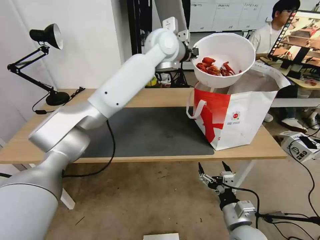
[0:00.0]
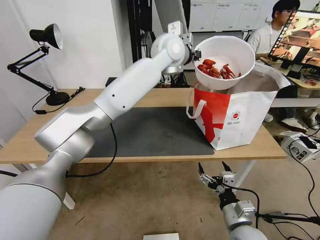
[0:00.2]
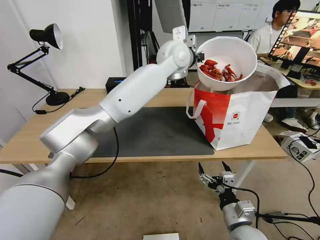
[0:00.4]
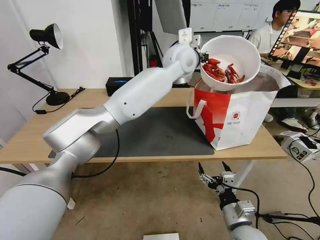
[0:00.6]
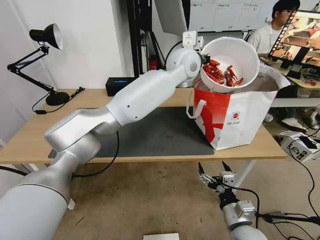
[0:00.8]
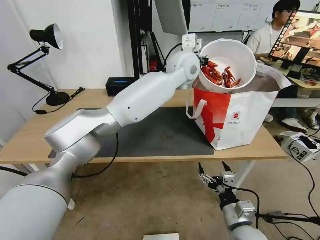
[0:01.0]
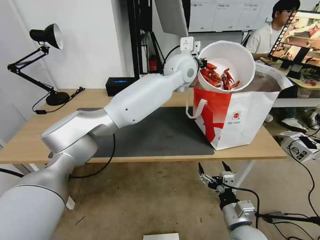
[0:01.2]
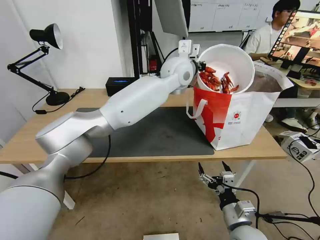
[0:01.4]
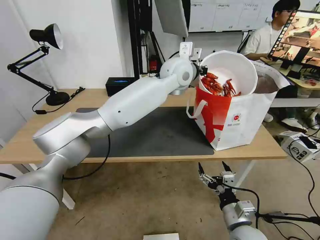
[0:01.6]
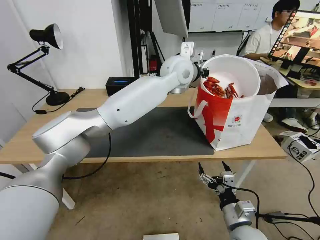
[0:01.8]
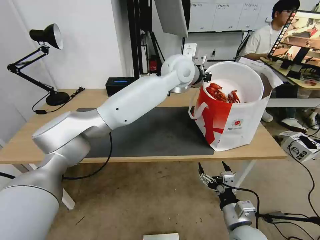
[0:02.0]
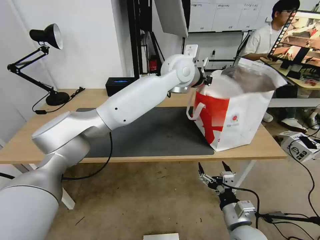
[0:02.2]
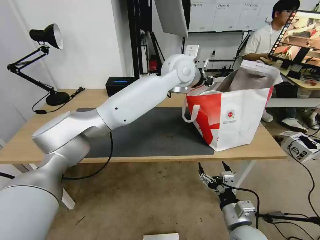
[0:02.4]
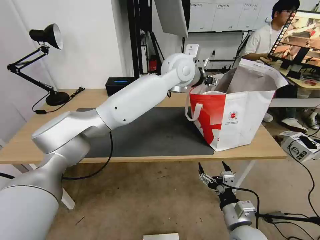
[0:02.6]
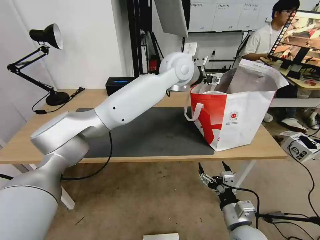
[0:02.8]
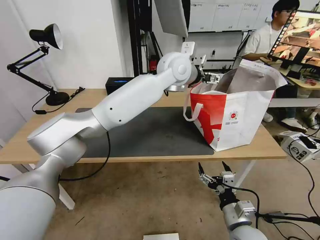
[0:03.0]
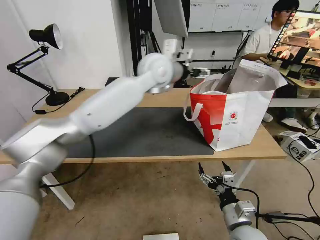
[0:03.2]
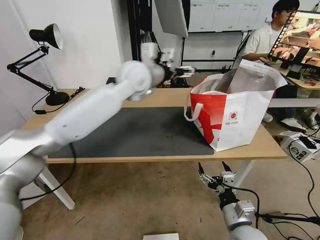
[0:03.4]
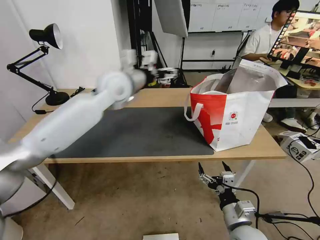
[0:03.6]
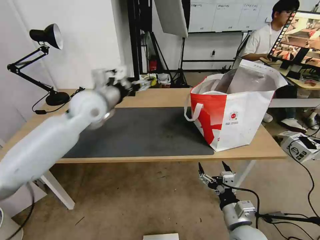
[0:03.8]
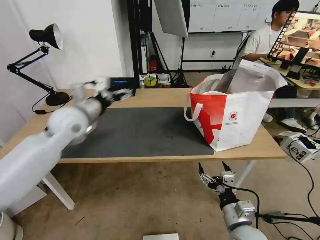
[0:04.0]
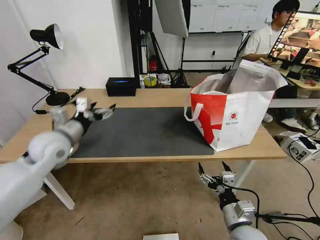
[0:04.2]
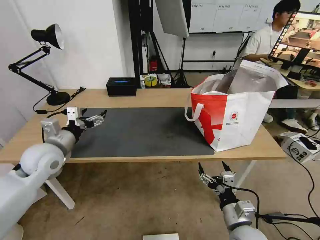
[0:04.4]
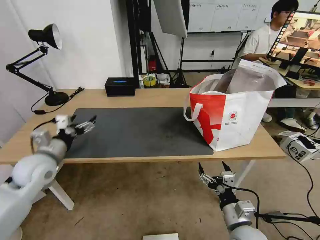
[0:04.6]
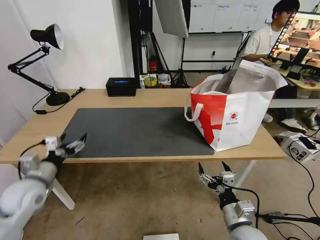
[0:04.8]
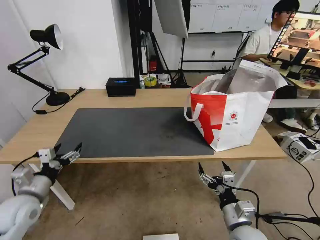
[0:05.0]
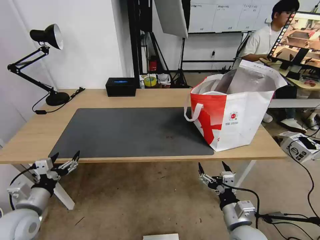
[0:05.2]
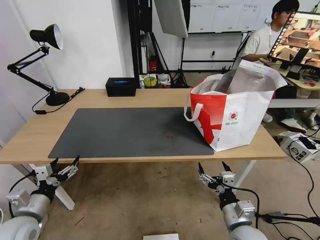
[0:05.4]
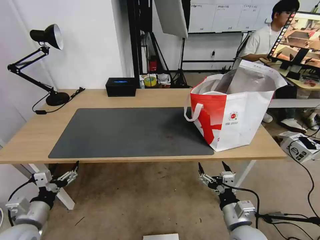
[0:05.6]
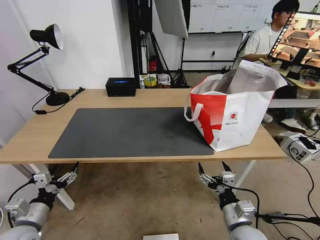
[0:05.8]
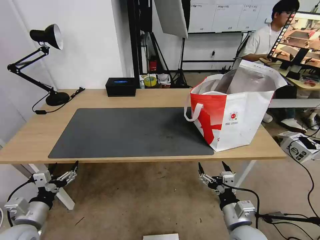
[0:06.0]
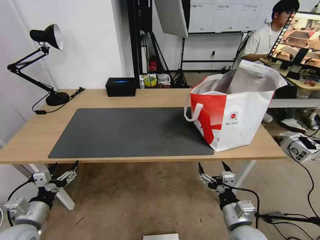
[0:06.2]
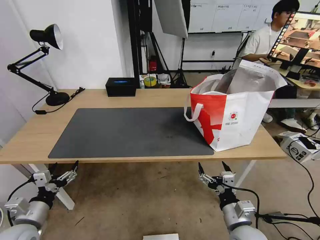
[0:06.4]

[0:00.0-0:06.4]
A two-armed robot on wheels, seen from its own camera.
Task of the whole recording: Pick up the trash from the table and place it into the takeout bag.
0:00.0 to 0:01.6: The left gripper travels downward by approximately 5 cm.
0:01.6 to 0:03.2: The left gripper goes some 5 cm to the left, and opens.
0:03.2 to 0:04.8: The left gripper shifts roughly 50 cm to the left, downward and backward.
0:04.8 to 0:06.4: The left gripper travels backward and downward by some 15 cm.

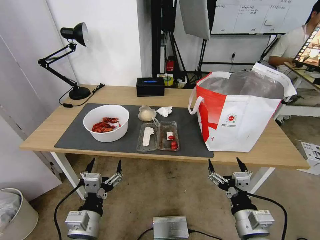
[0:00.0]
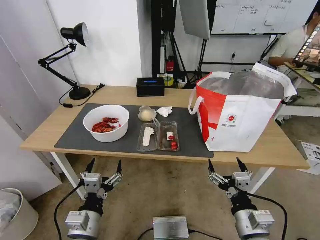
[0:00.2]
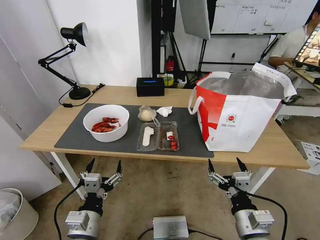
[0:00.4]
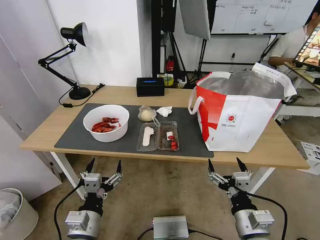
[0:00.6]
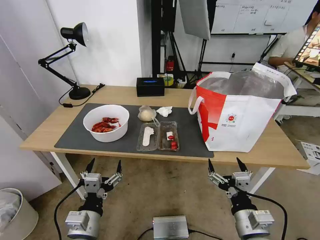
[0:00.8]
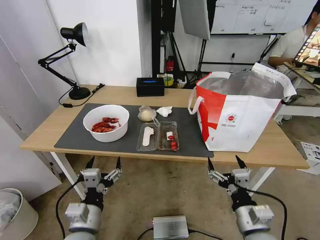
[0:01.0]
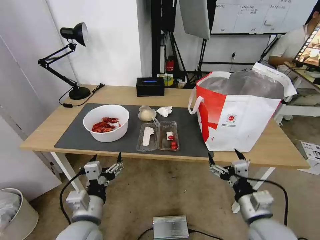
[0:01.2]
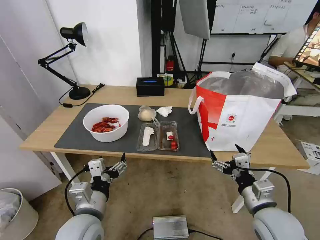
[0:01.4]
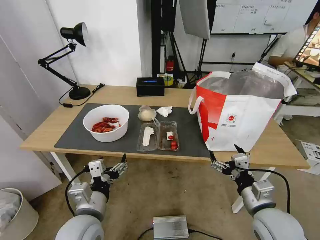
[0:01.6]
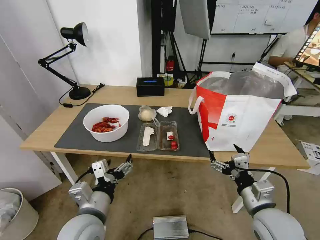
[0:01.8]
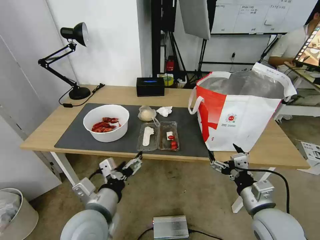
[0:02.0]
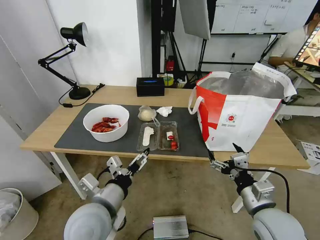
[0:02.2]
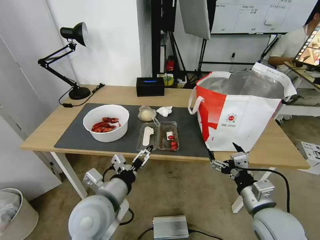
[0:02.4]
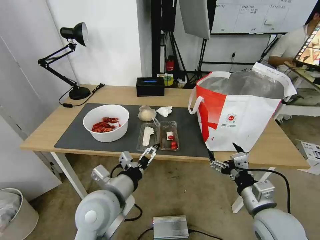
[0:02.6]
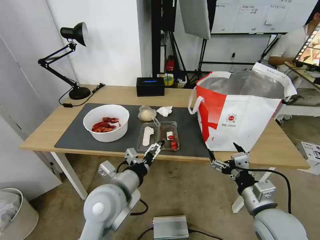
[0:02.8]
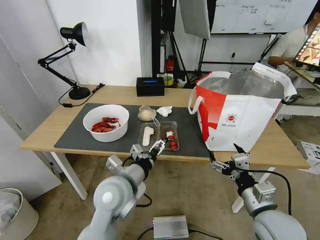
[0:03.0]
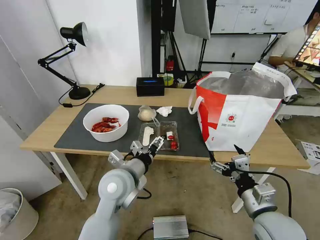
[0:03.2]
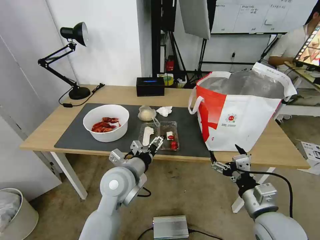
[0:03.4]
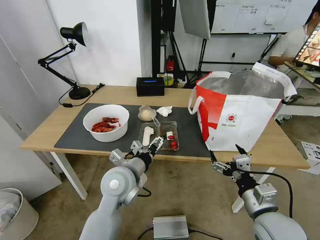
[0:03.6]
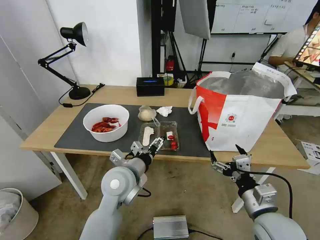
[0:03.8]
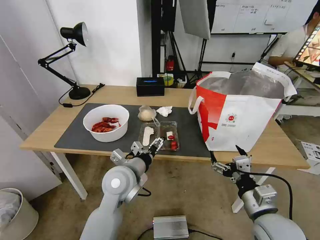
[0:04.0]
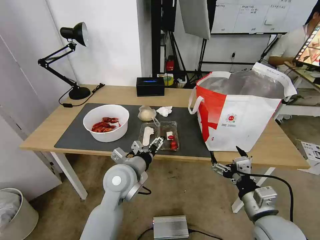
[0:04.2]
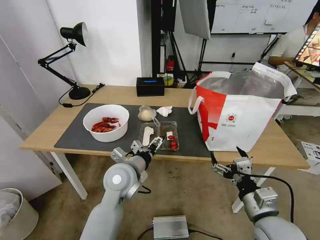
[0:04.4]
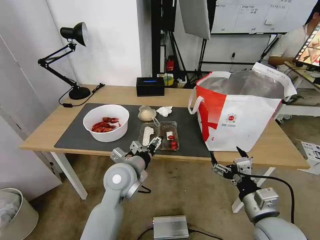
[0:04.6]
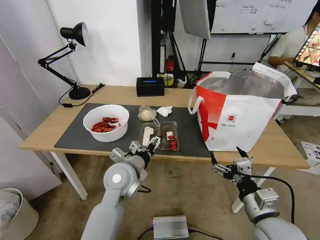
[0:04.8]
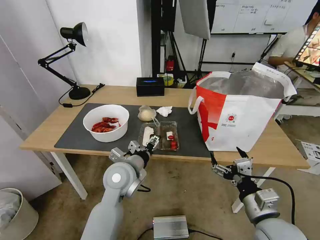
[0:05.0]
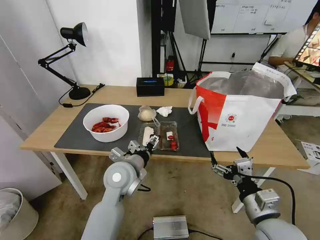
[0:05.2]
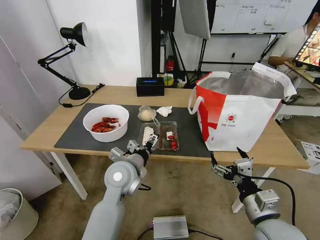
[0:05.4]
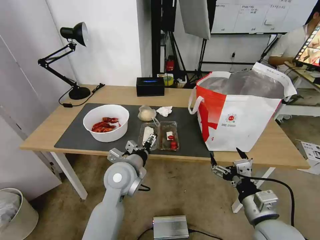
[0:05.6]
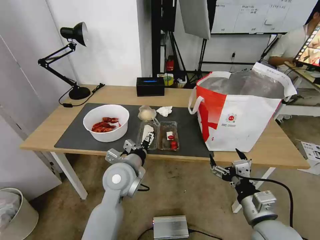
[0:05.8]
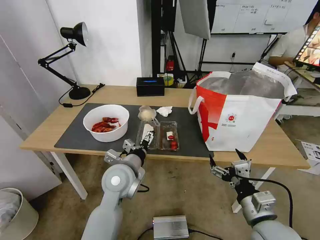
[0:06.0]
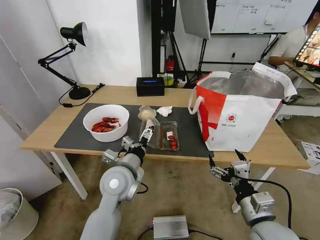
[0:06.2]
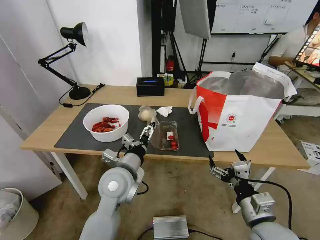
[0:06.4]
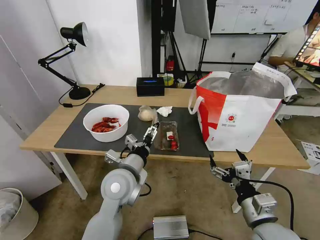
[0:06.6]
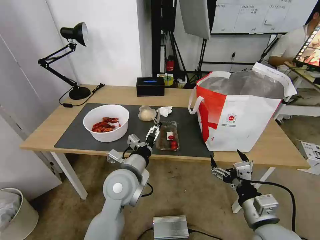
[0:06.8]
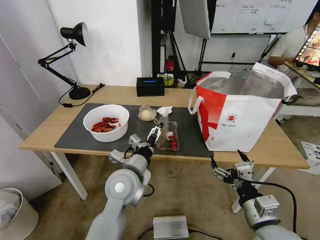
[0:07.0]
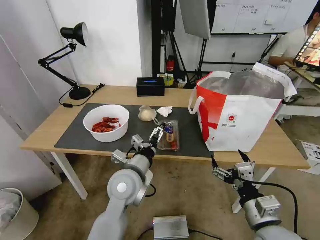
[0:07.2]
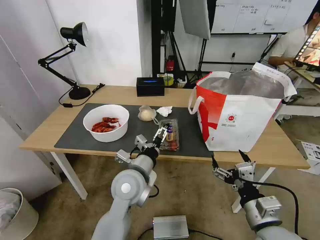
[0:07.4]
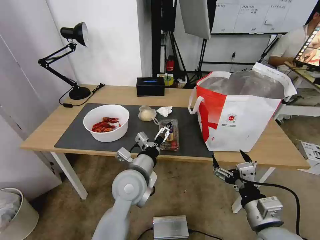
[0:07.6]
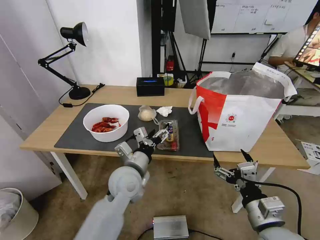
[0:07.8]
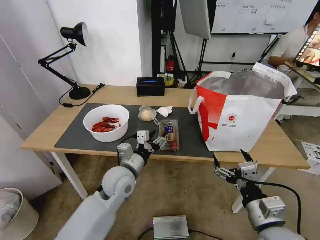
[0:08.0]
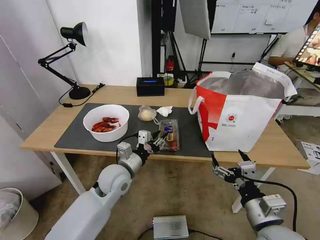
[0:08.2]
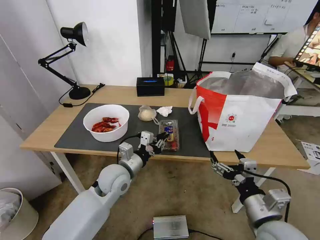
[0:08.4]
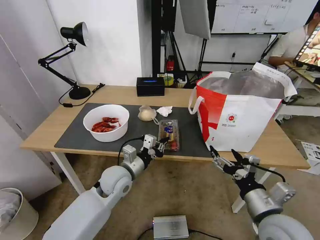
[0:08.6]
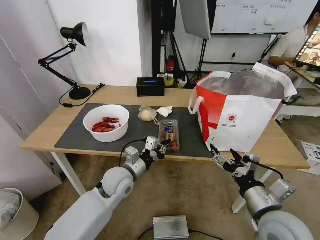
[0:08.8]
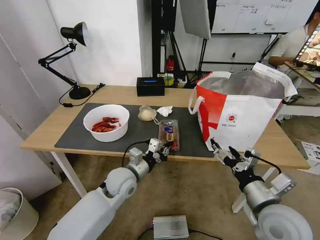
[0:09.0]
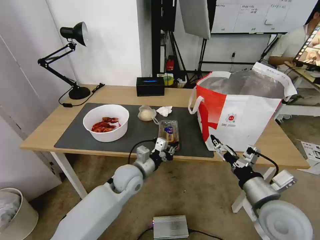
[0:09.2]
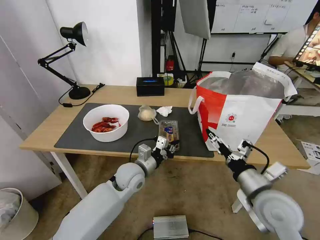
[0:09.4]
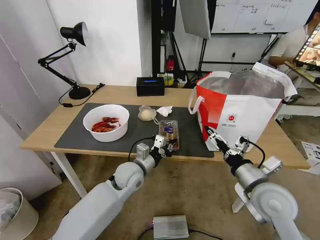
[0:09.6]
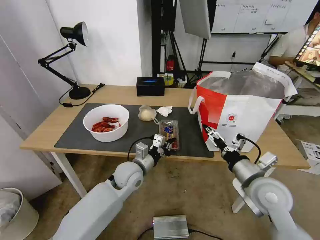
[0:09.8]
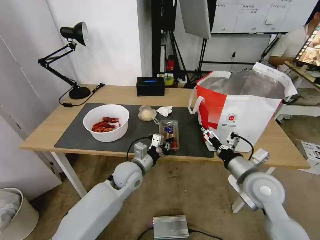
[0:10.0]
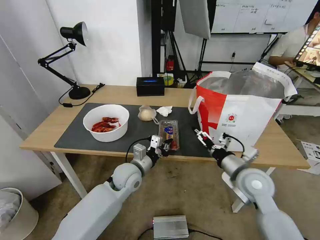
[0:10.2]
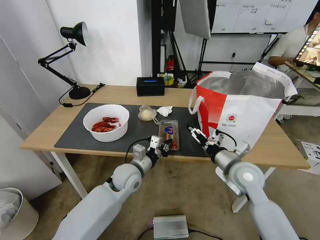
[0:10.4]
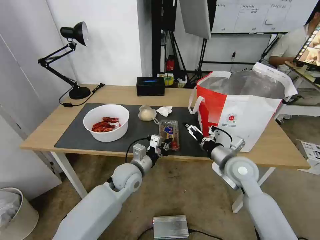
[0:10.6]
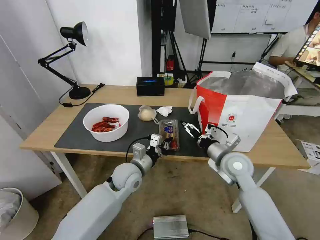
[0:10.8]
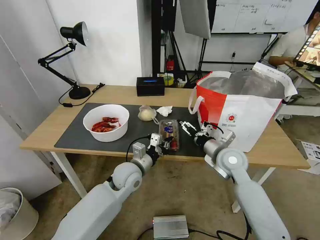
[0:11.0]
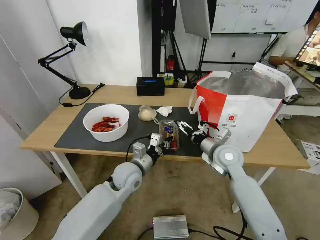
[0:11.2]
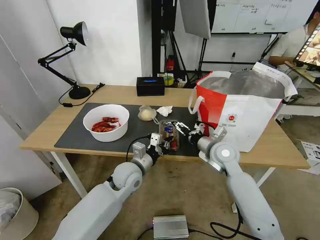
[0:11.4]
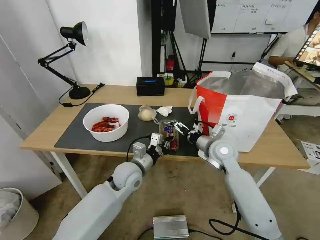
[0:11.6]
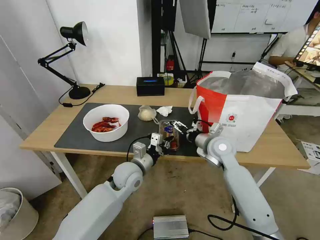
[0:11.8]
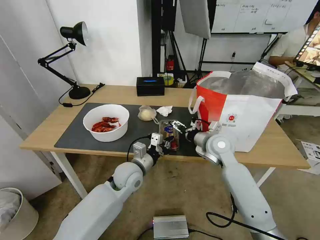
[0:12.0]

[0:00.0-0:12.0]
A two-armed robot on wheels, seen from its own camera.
Task of the whole recording: Pick up the trash from the table and place it into the takeout bag.
0:01.6 to 0:03.0: The left gripper is displaced forward and to the right by some 10 cm.
0:03.0 to 0:04.4: The left gripper shifts approximately 5 cm forward.
0:04.4 to 0:07.6: There are only small adjustments of the grippers.
0:07.6 to 0:09.0: The left gripper is displaced downward by approximately 5 cm, and closes.
0:09.0 to 0:10.4: The right gripper is displaced forward by roughly 15 cm.
0:10.4 to 0:12.0: The right gripper travels forward and to the left by about 10 cm.

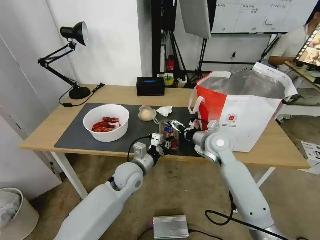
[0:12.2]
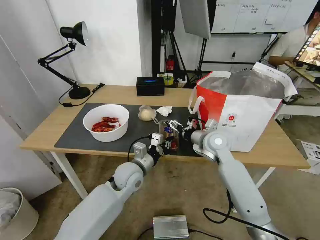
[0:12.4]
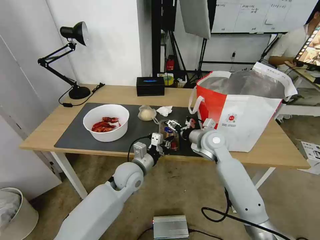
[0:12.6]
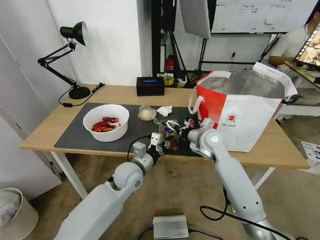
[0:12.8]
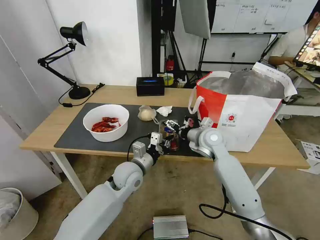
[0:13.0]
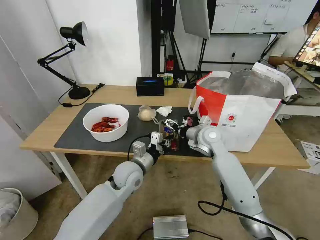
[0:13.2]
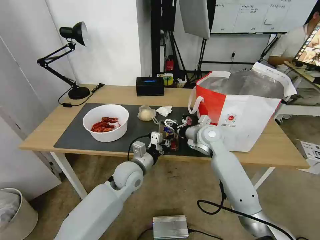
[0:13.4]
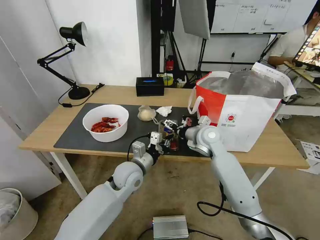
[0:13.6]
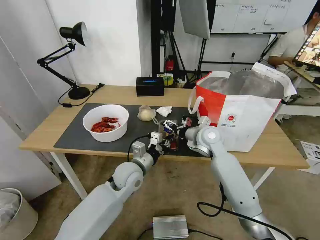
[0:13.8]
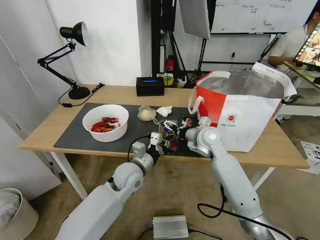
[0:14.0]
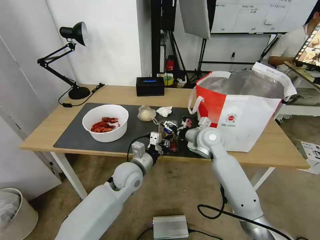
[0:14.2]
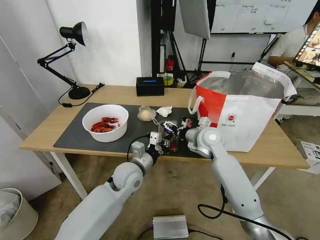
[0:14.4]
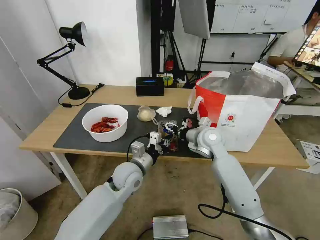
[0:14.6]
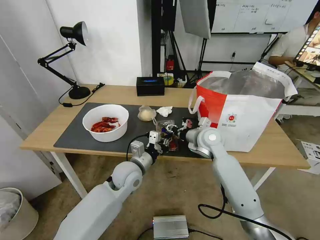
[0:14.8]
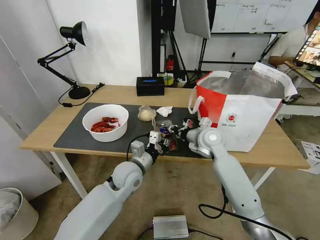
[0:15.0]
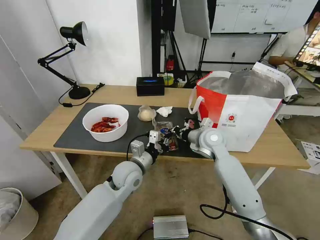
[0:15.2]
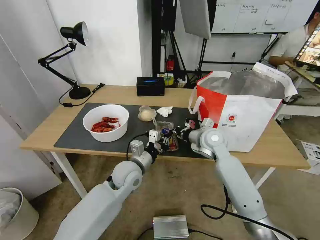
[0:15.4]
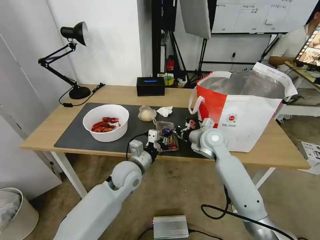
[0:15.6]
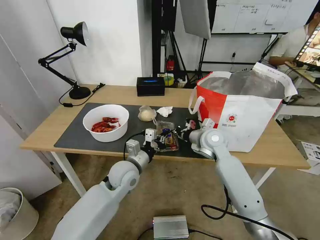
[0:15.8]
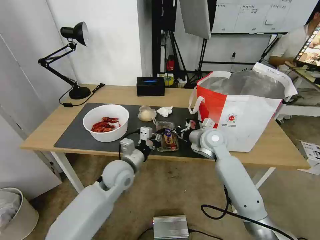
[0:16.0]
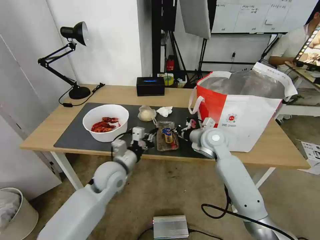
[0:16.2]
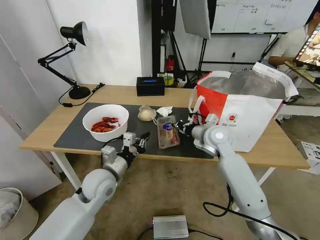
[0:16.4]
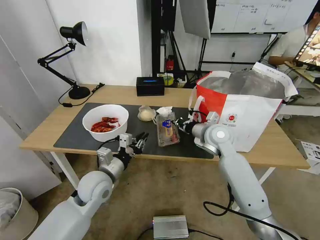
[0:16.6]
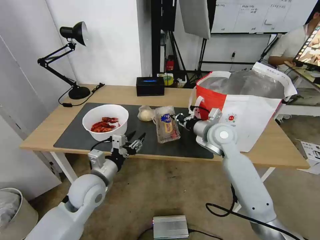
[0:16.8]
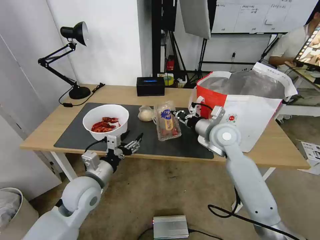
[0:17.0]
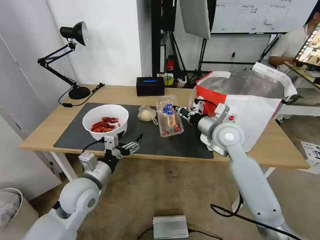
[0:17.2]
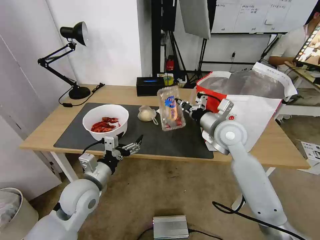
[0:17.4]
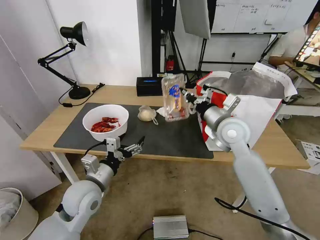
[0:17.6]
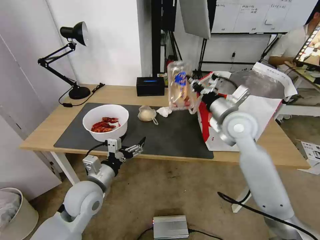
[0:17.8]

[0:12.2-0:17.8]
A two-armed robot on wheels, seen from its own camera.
Task of the whole recording: Pick up the trash from the table and place it into the takeout bag.
0:12.2 to 0:13.6: The grippers make only small movements.
0:13.6 to 0:15.0: The right gripper closes up.
0:15.0 to 0:16.4: The left gripper goes about 10 cm to the left.
0:16.4 to 0:17.8: The left gripper changes place by approximately 5 cm, and opens up. The right gripper goes about 10 cm upward.
